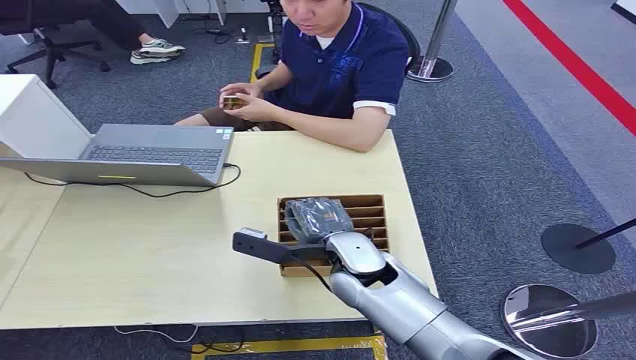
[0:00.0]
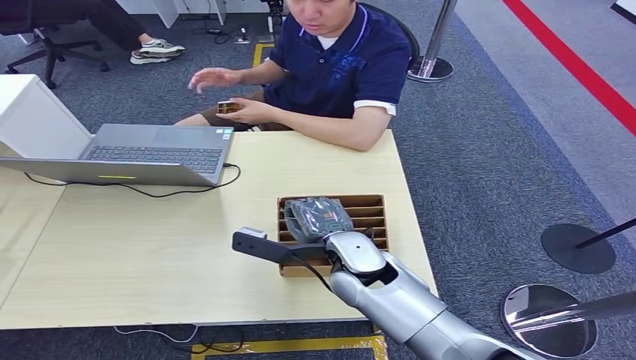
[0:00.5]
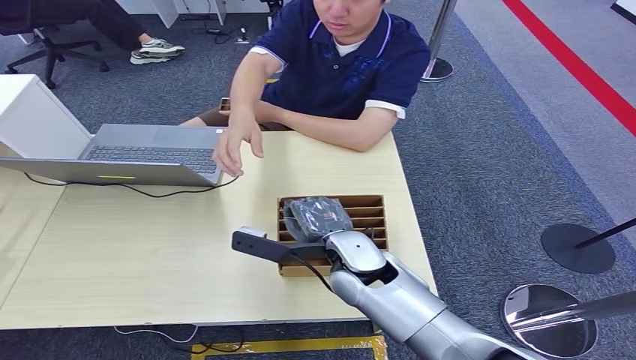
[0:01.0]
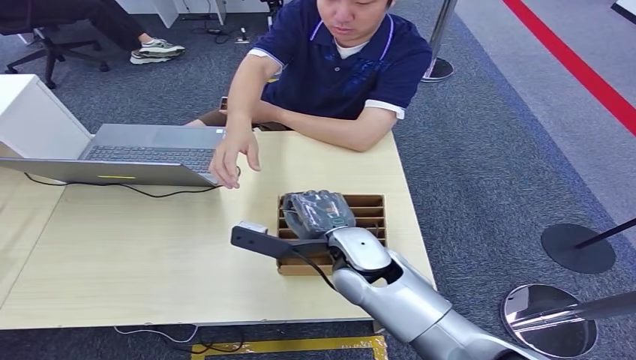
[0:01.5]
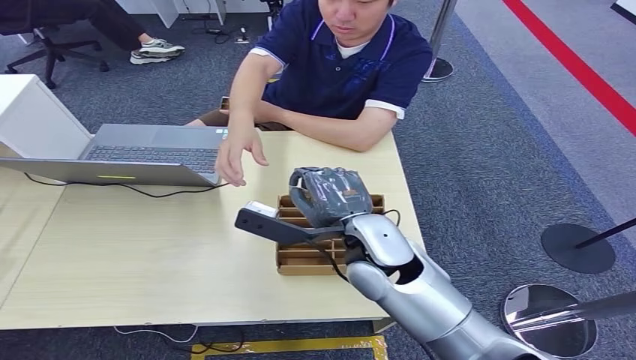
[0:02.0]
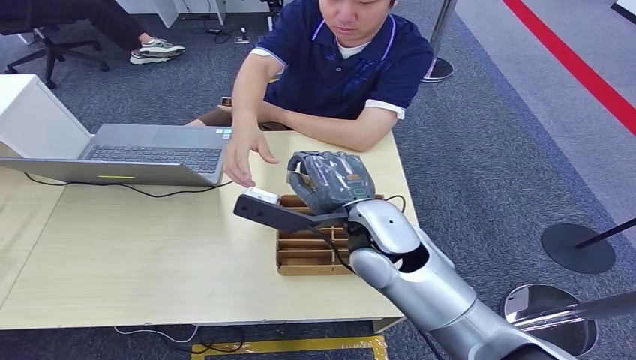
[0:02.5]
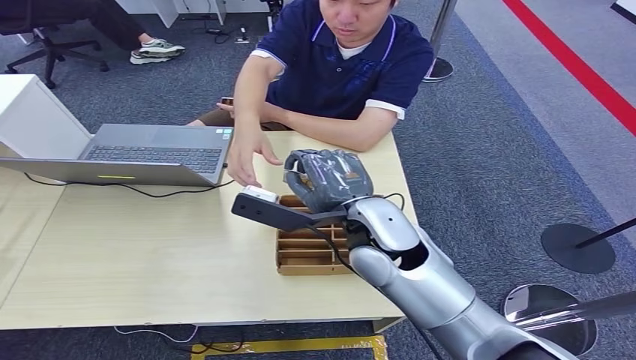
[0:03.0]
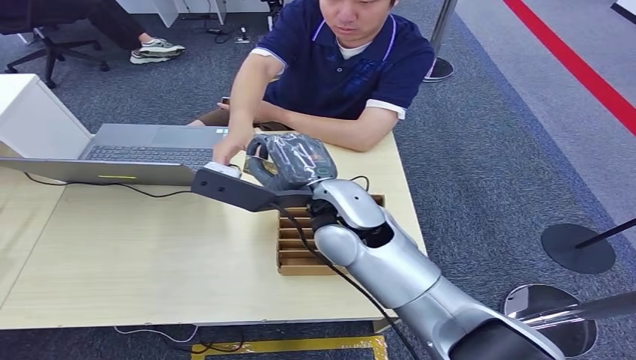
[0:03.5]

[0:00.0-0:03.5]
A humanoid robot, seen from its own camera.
Step, 0:00.0 to 0:02.5: Pick up the key card from the card box.
Step, 0:03.0 to 0:03.5: Hand the key card to the target.
0:02.0 to 0:03.5: The right hand goes about 5 cm upward.
